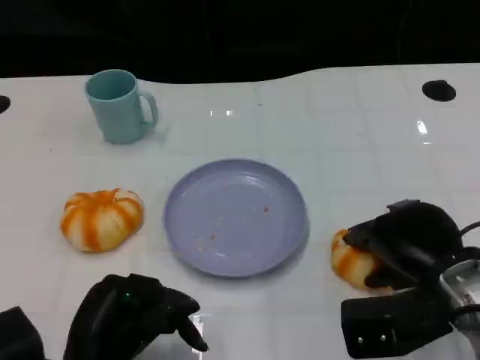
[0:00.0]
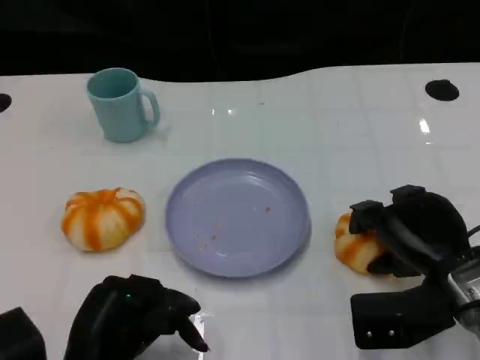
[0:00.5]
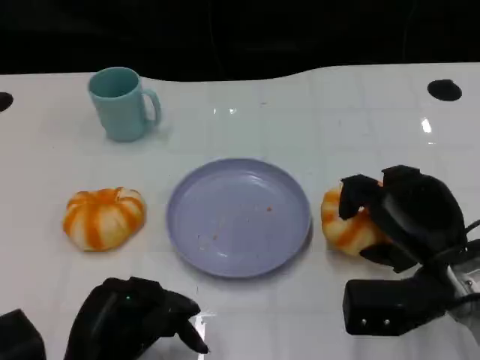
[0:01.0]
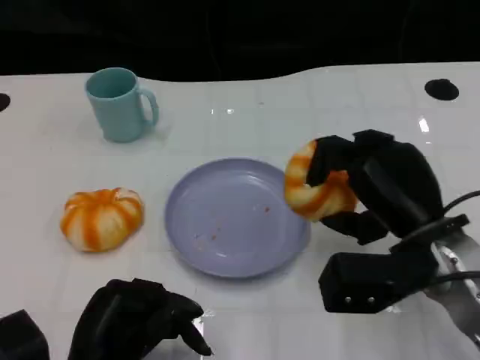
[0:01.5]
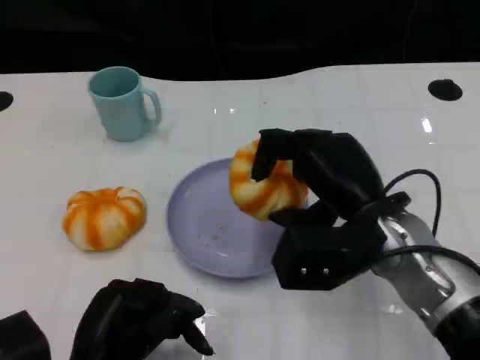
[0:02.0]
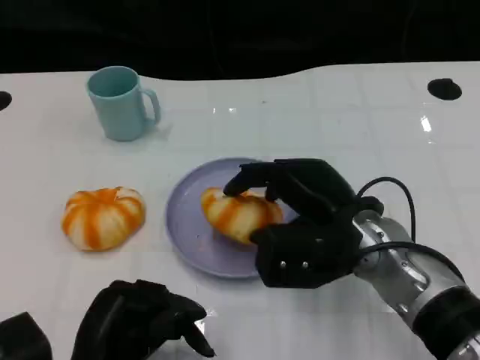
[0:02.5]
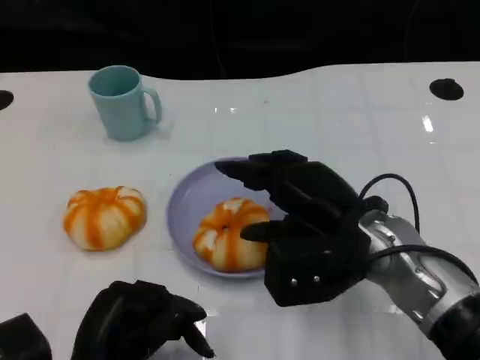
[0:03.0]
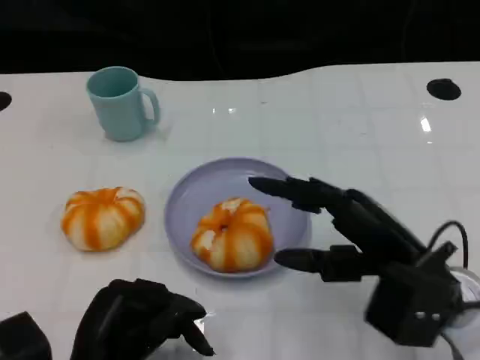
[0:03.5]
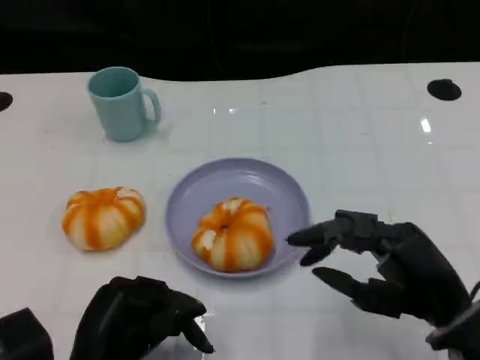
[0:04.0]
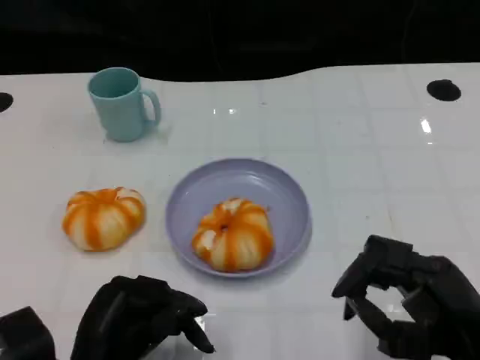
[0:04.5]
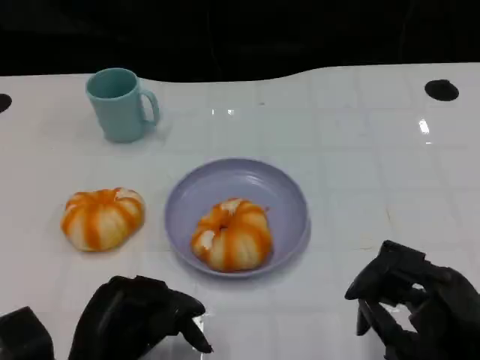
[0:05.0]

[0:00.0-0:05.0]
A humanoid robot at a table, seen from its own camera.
Task of the whole recording: Grasp the bread from the table and place it into the plate.
0:00.0 to 0:02.5: The right hand travels to the left by some 10 cm.
0:02.5 to 0:05.0: The right hand moves backward and to the right, about 20 cm.
